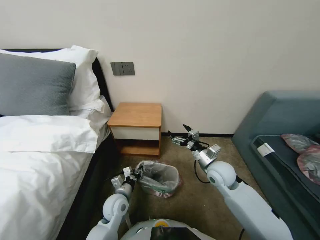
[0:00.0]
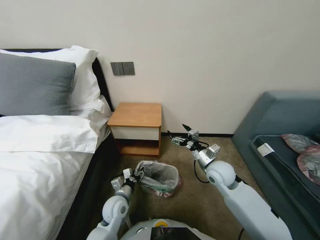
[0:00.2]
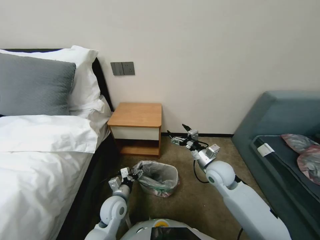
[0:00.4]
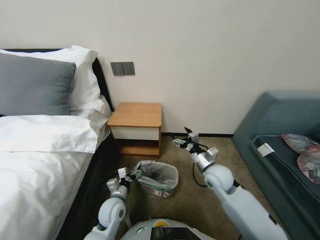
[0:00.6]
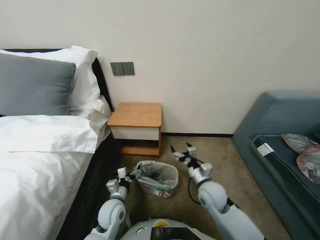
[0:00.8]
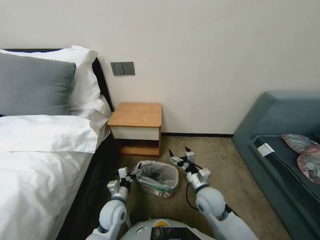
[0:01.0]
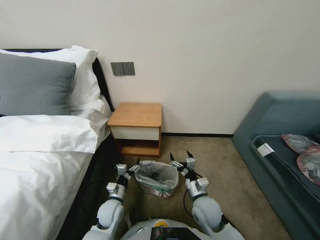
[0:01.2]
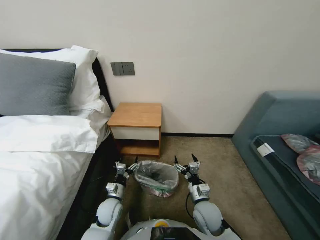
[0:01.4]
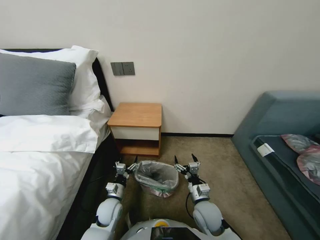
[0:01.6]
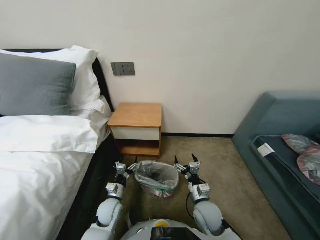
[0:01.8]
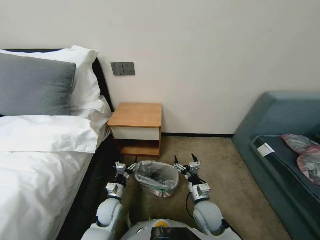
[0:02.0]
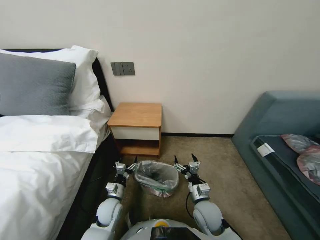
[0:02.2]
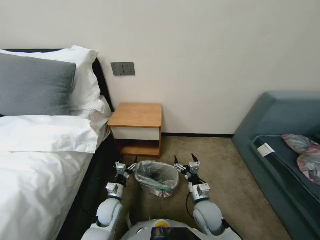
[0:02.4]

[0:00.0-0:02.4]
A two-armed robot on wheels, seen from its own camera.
Task of the whole recording: Pick up the garbage bag from the table and place it over the trash can.
0:00.0 to 0:01.2: The left gripper opens its fingers. Meanwhile the right gripper heads backward, downward and to the left, covering roughly 15 cm.
0:01.2 to 0:02.4: The grippers make only small movements.
